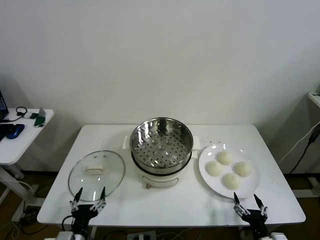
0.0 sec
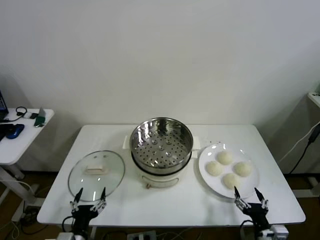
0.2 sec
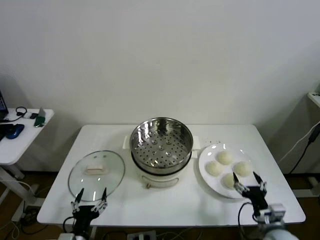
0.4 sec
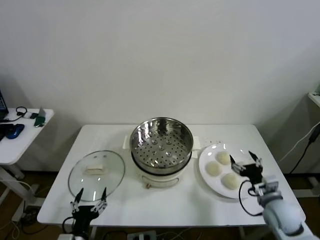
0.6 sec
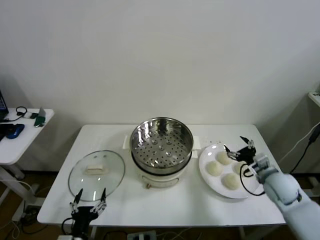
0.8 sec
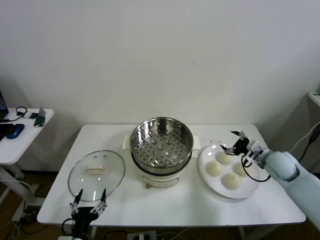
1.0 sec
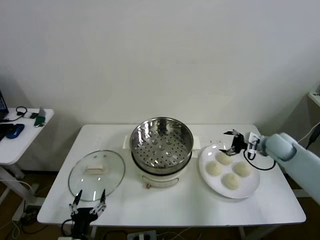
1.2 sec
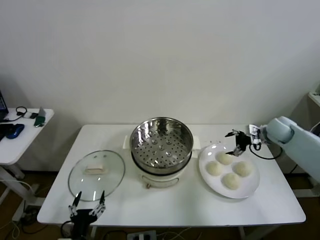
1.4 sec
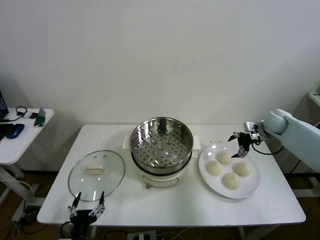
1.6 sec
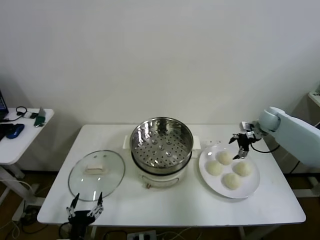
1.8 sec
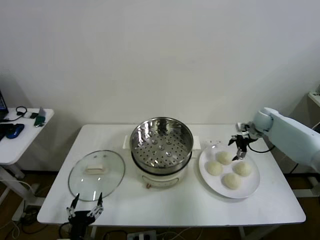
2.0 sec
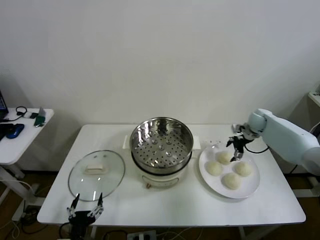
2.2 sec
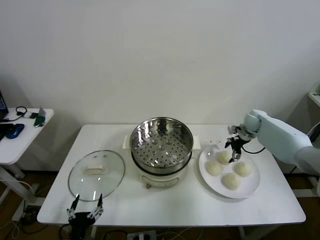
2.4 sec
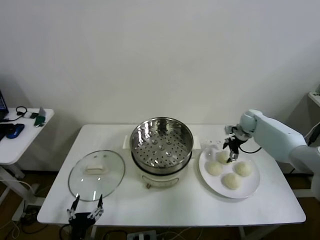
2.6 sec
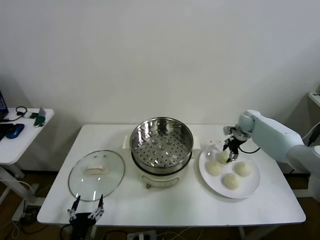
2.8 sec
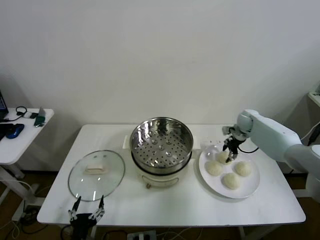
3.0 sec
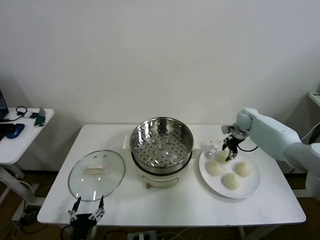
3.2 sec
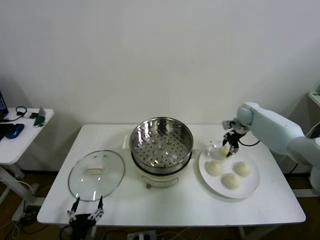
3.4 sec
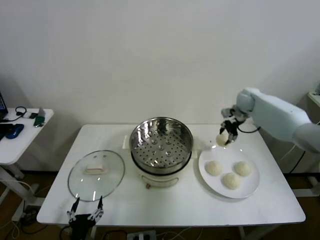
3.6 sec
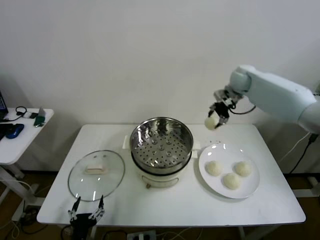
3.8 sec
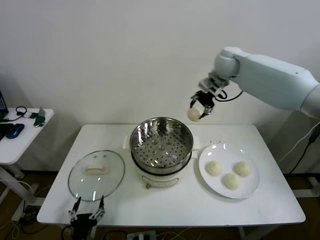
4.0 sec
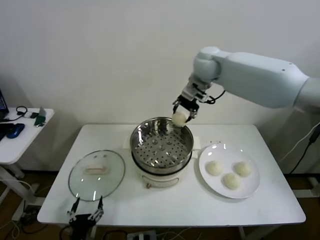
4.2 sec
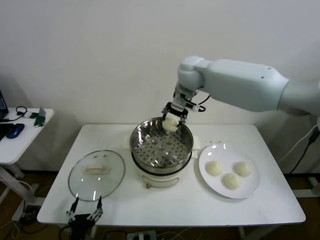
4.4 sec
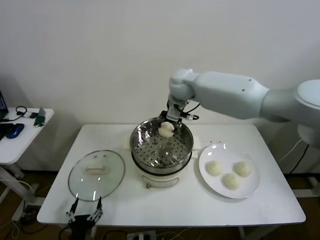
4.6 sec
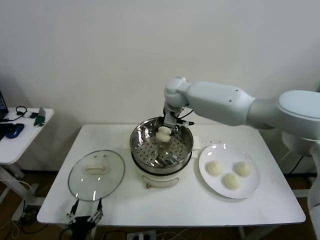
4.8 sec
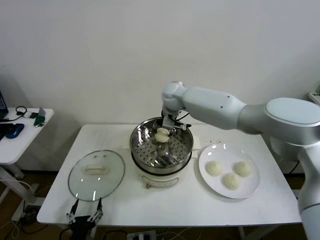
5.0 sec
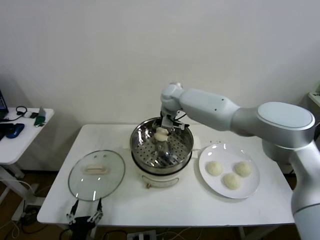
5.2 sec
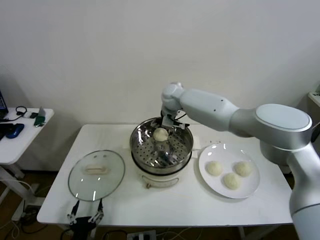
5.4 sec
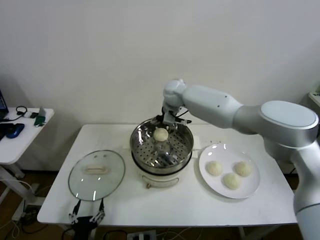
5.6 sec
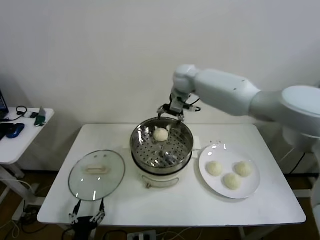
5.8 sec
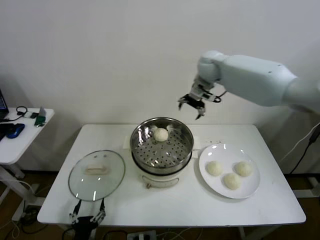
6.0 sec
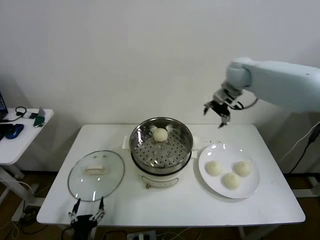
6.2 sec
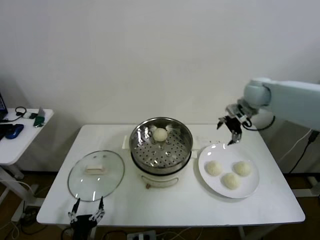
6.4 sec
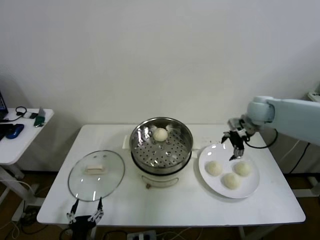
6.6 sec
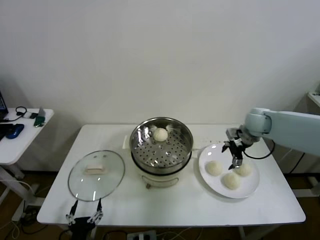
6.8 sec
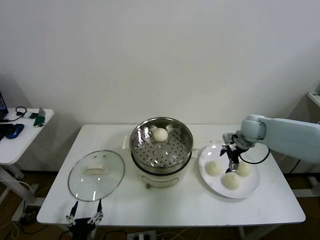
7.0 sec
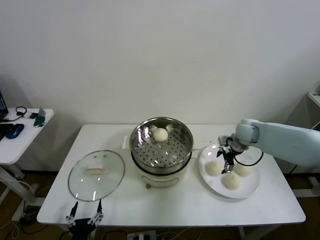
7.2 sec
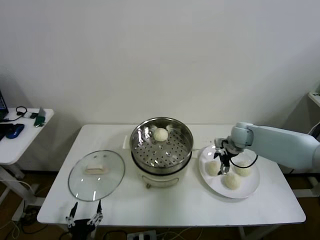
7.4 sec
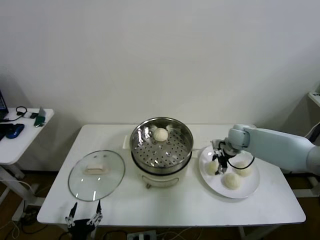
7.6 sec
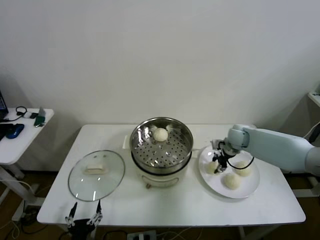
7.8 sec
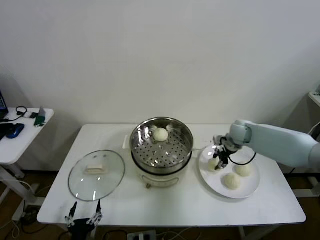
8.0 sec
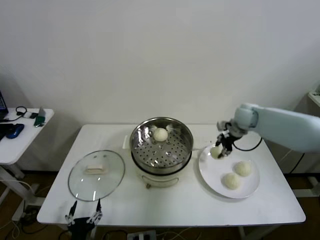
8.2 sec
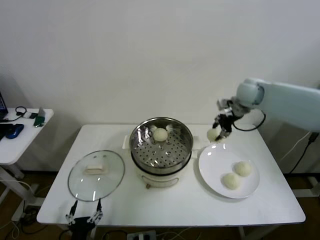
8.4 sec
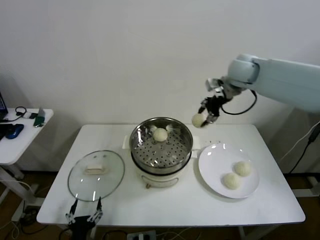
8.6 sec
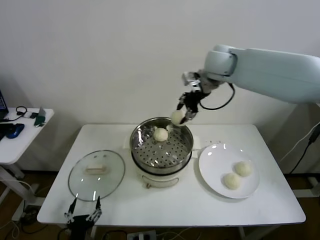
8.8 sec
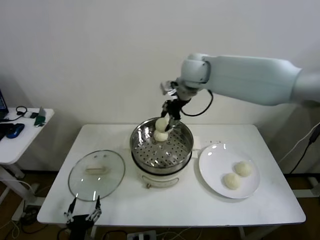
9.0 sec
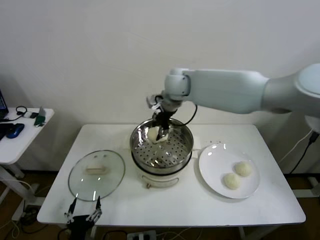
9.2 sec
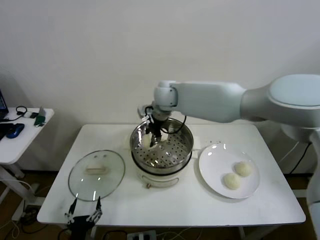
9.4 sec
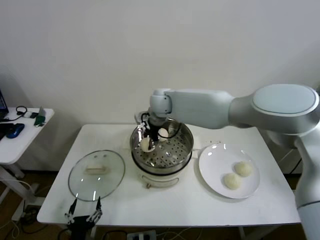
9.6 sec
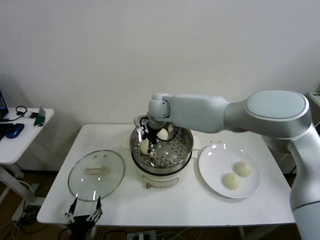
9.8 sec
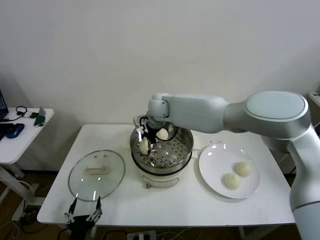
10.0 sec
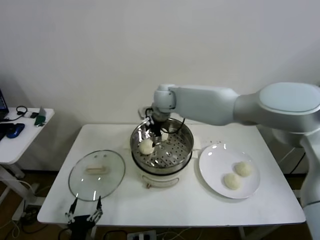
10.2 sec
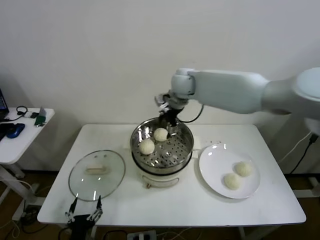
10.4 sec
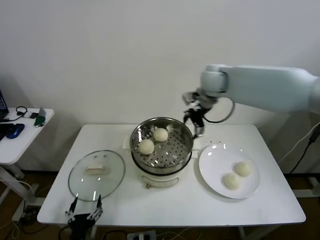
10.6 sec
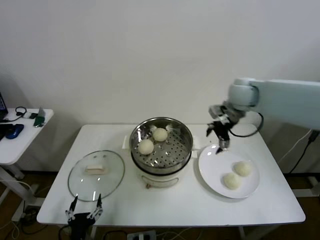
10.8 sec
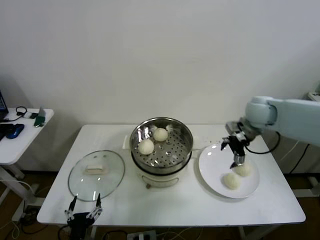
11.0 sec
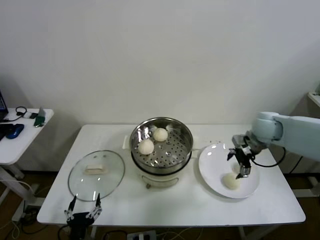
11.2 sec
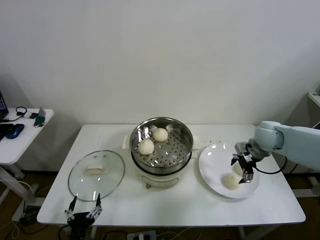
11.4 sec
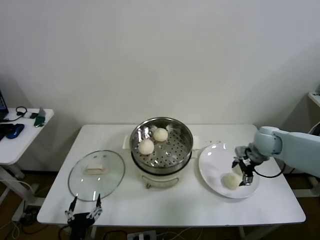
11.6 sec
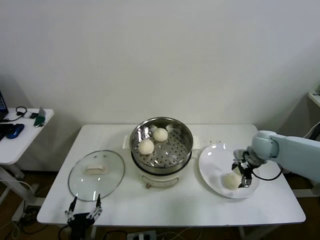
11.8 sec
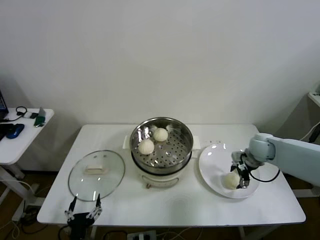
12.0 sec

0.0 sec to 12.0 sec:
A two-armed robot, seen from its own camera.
Step, 0.0 sec to 2.8 sec: Grasp the baozi in the plate with right gripper.
Step, 3.0 sec to 5.4 sec: Place the baozi on the steamer with right gripper.
Step, 5.6 sec to 7.6 sec: Grasp the baozi in the plate with right gripper.
Step, 7.8 sec to 9.8 sec: Place the baozi on the steamer with right gripper.
1.6 sec to 3.0 sec: The right gripper is displaced to the left by about 5 cm, and closes up.
3.0 sec to 4.4 sec: The right gripper is displaced to the left and upward by some 35 cm.
4.4 sec to 6.0 sec: The right gripper goes approximately 15 cm to the right, and opens up.
6.0 sec to 7.6 sec: The right gripper heads downward, covering roughly 25 cm, and closes.
7.6 sec to 9.0 sec: The right gripper is displaced upward and to the left by approximately 35 cm.
9.0 sec to 10.4 sec: The right gripper opens.
10.4 sec to 12.0 sec: The right gripper travels to the right, downward and backward by approximately 35 cm.

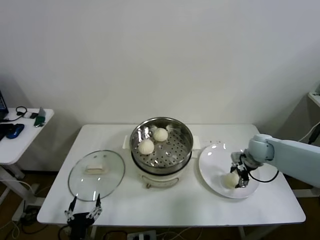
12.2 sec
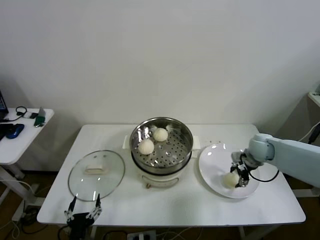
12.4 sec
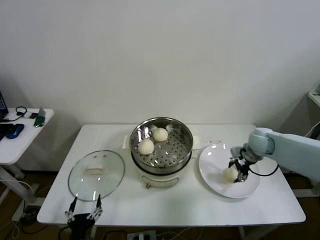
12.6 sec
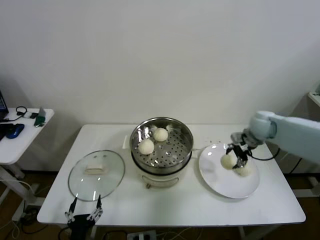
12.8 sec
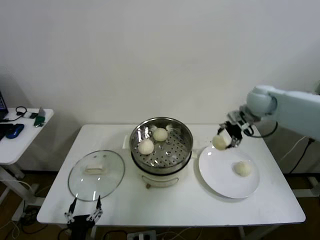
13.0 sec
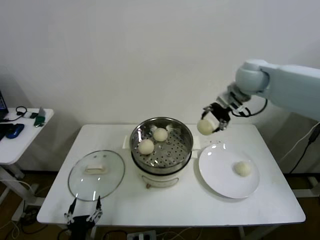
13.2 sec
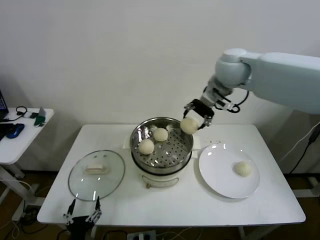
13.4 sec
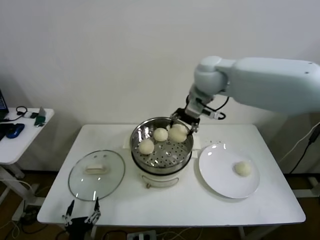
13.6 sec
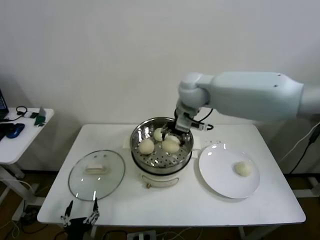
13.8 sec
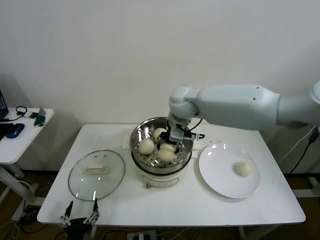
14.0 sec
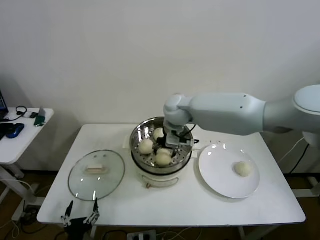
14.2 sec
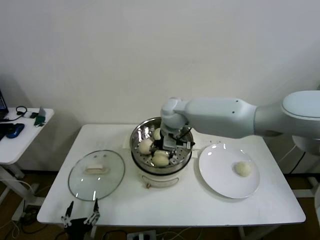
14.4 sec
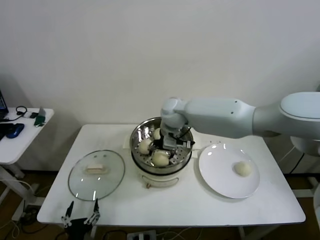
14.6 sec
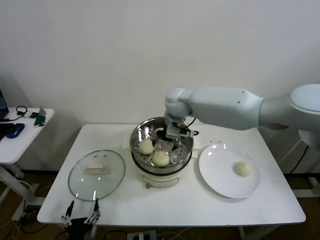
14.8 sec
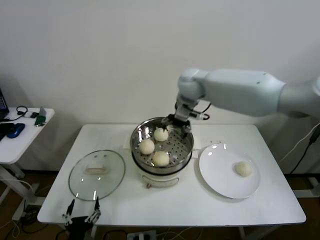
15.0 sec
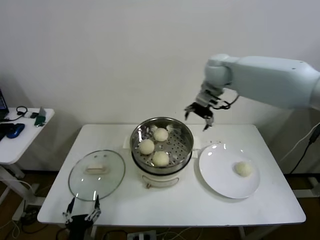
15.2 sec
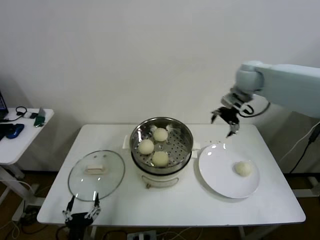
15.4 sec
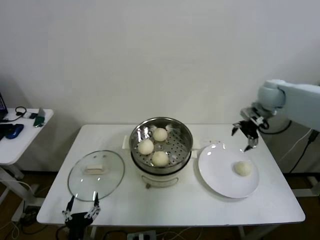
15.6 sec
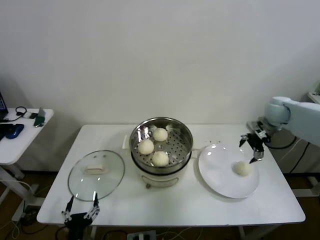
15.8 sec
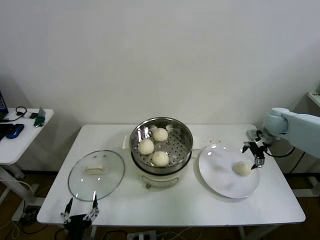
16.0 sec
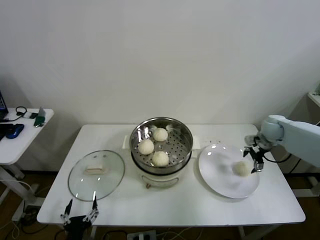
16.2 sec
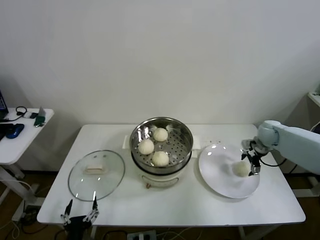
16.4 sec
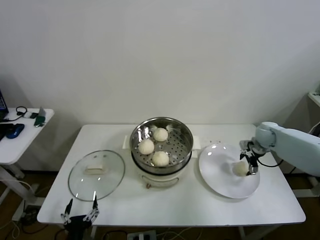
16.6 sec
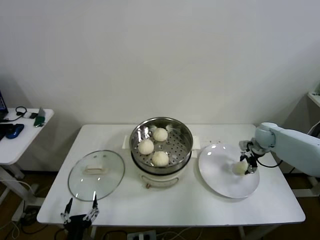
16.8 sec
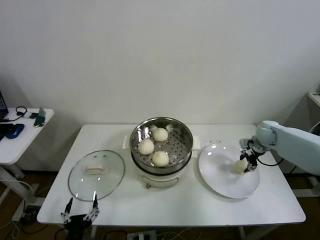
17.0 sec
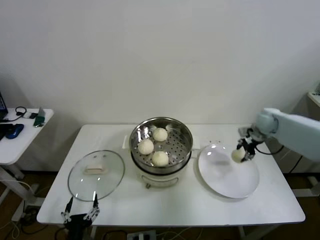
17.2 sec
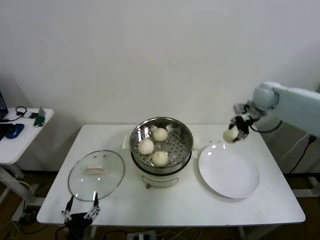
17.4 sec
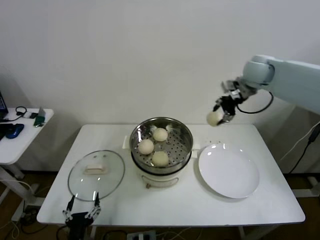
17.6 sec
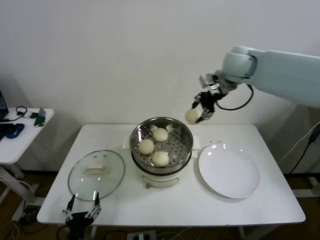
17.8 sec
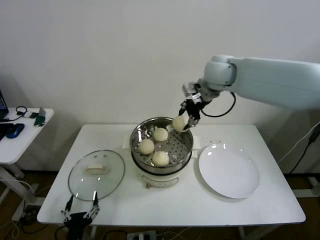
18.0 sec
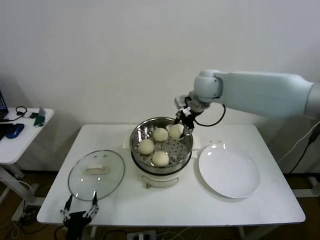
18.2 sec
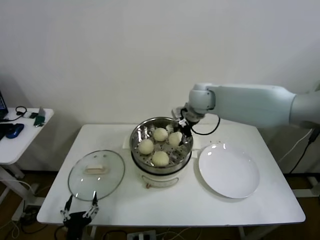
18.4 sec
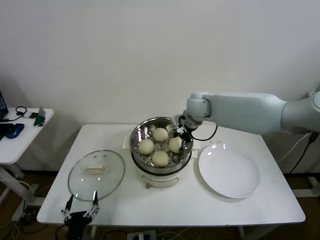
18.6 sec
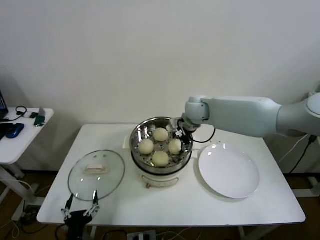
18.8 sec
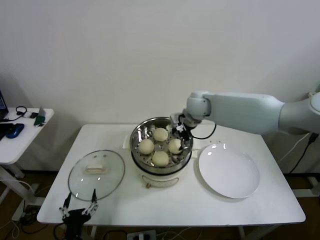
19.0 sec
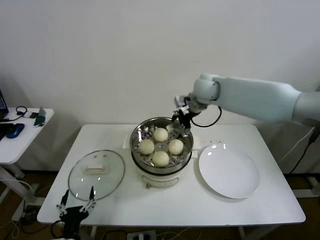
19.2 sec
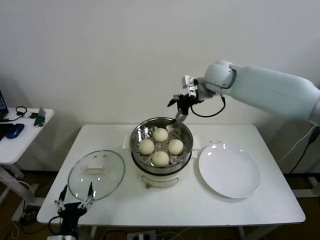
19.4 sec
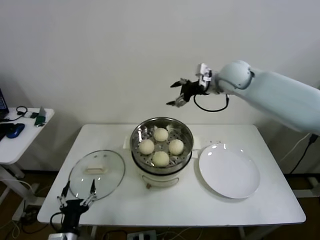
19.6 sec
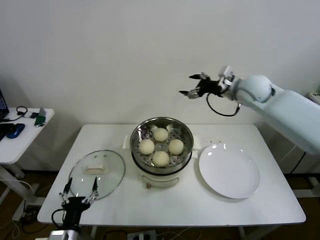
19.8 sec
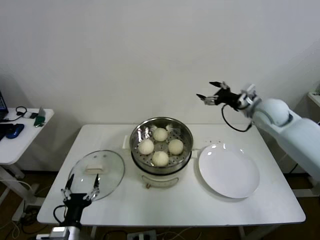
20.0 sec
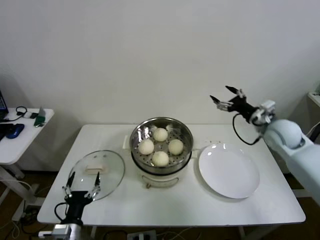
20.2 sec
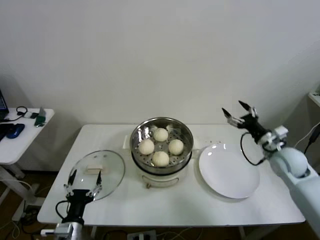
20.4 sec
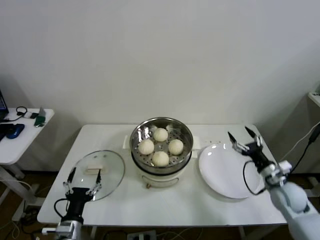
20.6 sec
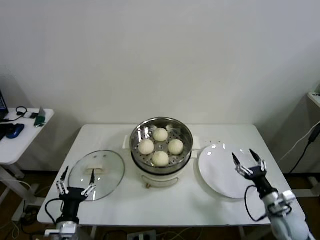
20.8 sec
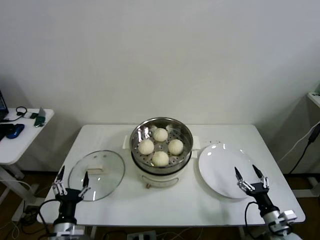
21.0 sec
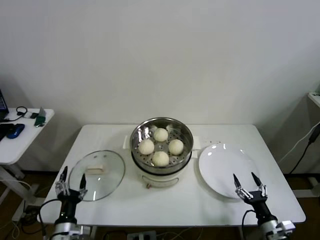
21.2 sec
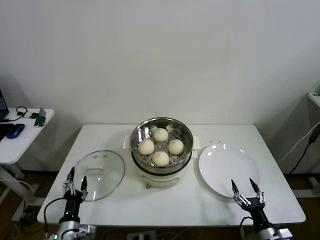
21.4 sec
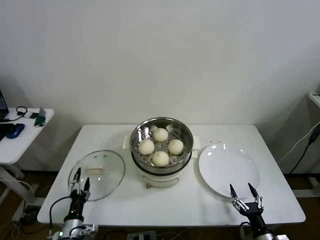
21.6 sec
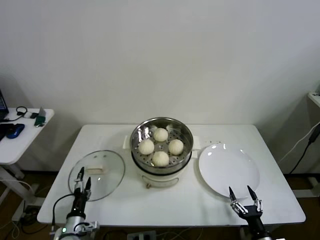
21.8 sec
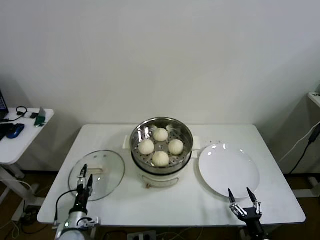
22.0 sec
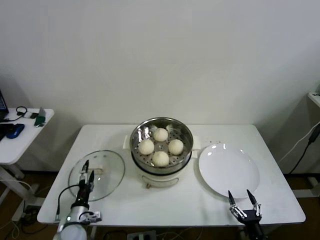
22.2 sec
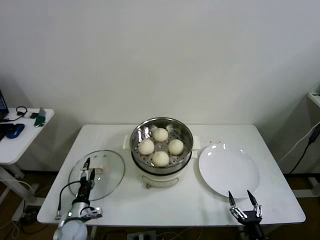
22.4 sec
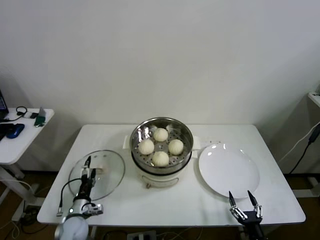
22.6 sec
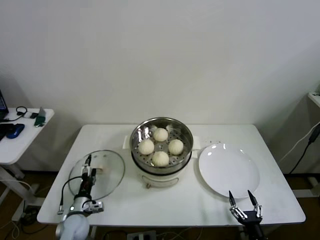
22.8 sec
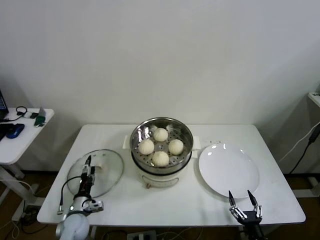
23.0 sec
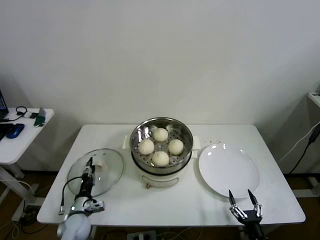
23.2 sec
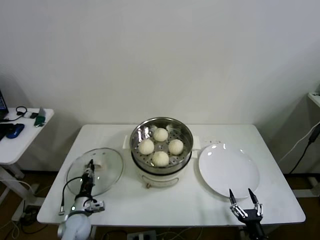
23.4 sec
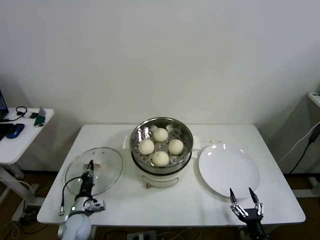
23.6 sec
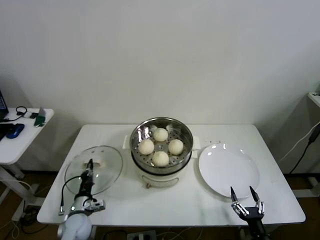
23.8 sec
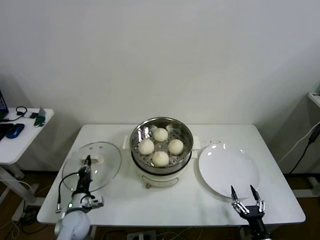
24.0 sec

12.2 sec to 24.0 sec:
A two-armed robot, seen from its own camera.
Step, 12.2 sec to 14.4 sec: Place the baozi on the steamer with right gripper.
Step, 14.6 sec to 16.8 sec: Grasp the baozi in the plate with right gripper.
Step, 17.2 sec to 18.8 sec: Place the baozi on the steamer with right gripper.
Step, 19.0 sec to 23.4 sec: Grasp the pot lid with left gripper.
12.2 sec to 13.6 sec: The right gripper is displaced upward and to the left by about 35 cm.
13.6 sec to 15.2 sec: The right gripper is displaced to the right and forward by roughly 10 cm, and opens its fingers.
15.2 sec to 16.6 sec: The right gripper travels downward and to the right by roughly 35 cm.
16.6 sec to 18.2 sec: The right gripper is displaced to the left and upward by approximately 35 cm, and closes its fingers.
18.2 sec to 19.6 sec: The right gripper goes about 10 cm to the right, goes downward and returns, some 10 cm each way, and opens up.
19.6 sec to 21.0 sec: The right gripper moves downward, backward and to the right, roughly 60 cm.
21.0 sec to 22.6 sec: The left gripper goes some 15 cm forward and downward; the right gripper travels backward, to the left and downward by approximately 10 cm.
22.6 sec to 24.0 sec: The left gripper closes its fingers.
